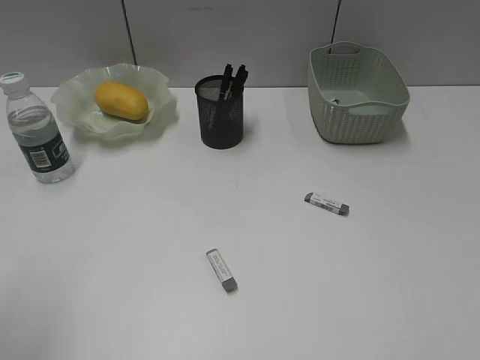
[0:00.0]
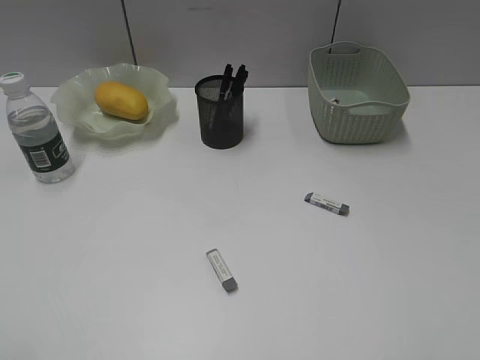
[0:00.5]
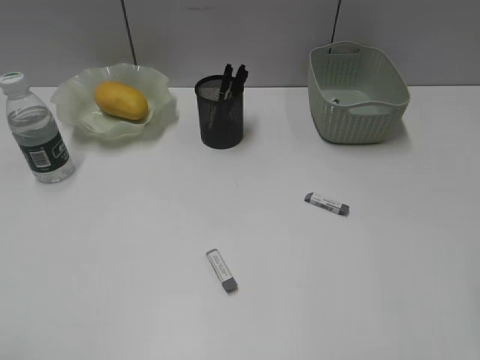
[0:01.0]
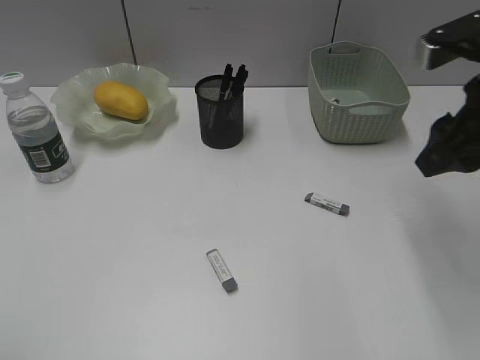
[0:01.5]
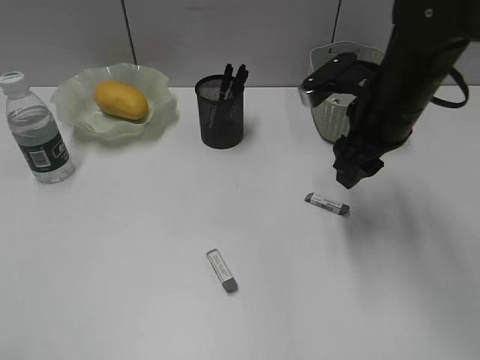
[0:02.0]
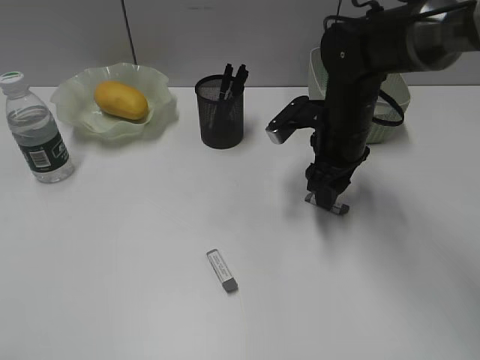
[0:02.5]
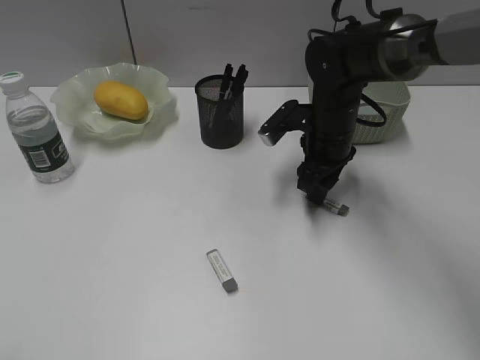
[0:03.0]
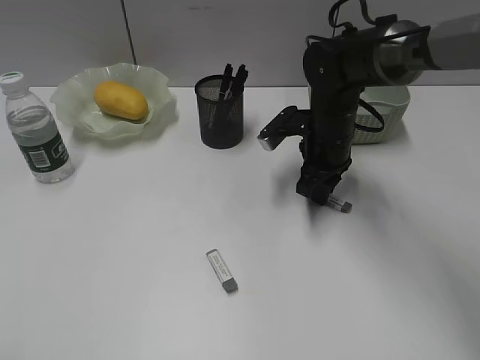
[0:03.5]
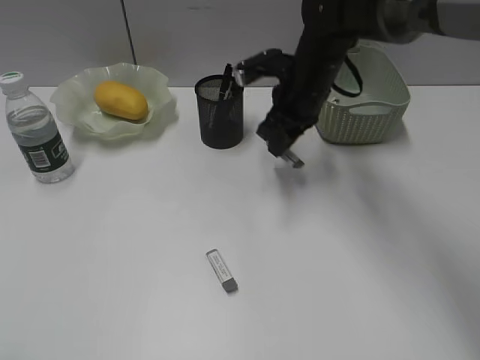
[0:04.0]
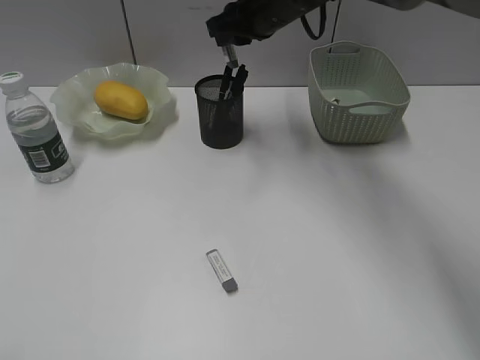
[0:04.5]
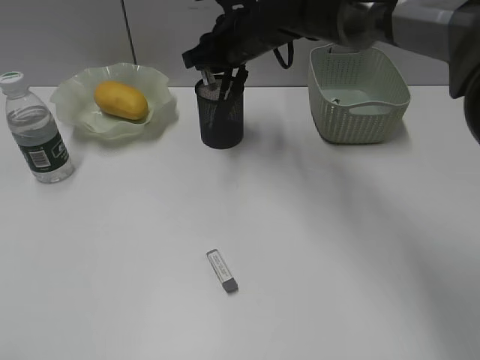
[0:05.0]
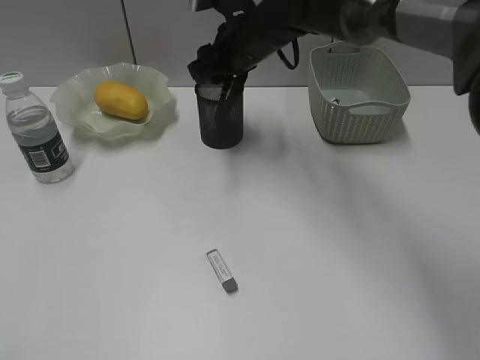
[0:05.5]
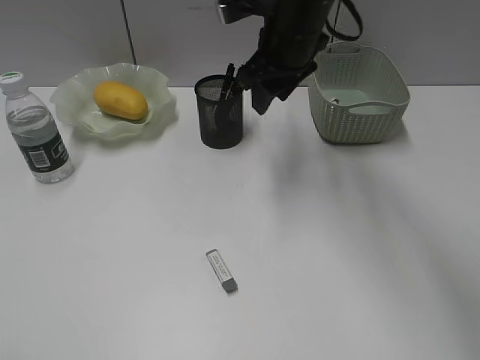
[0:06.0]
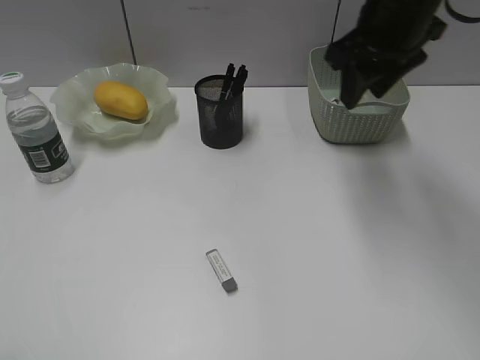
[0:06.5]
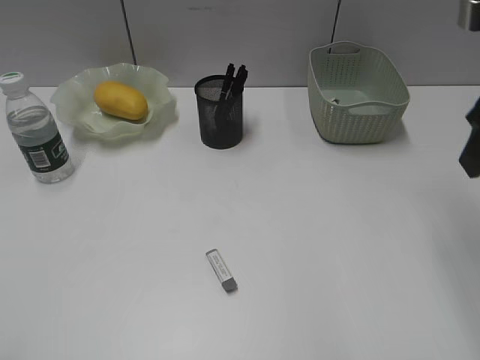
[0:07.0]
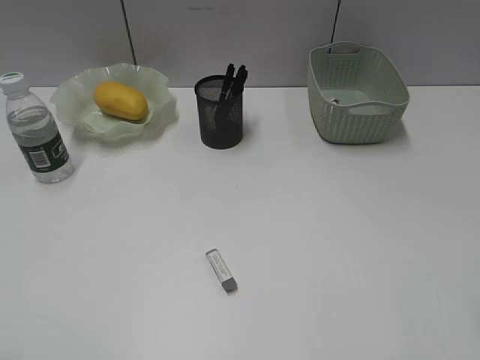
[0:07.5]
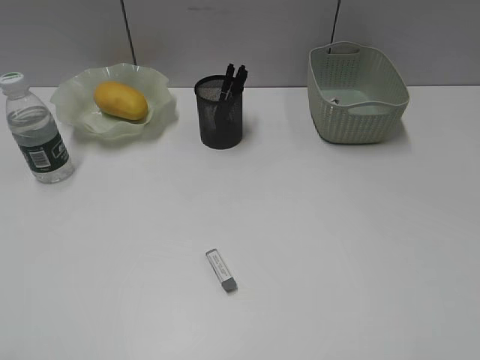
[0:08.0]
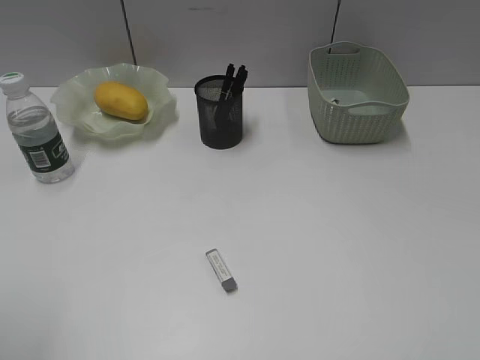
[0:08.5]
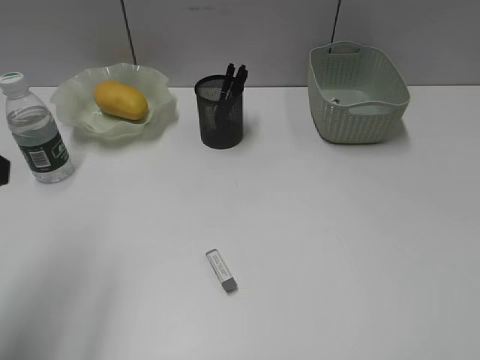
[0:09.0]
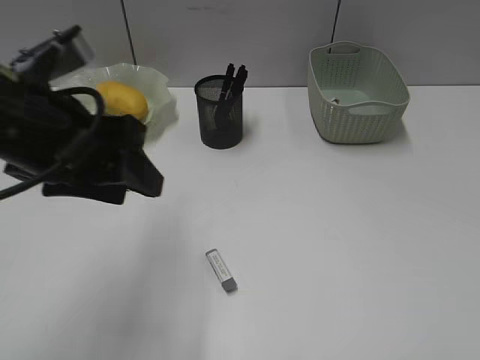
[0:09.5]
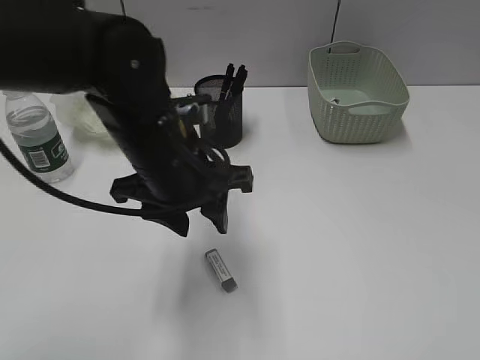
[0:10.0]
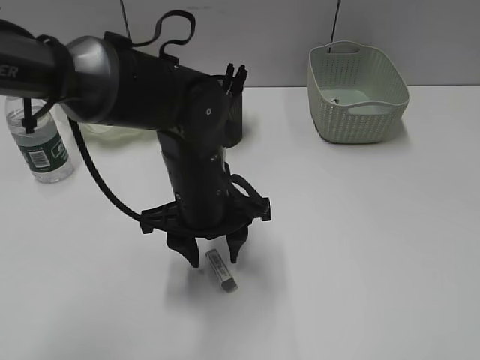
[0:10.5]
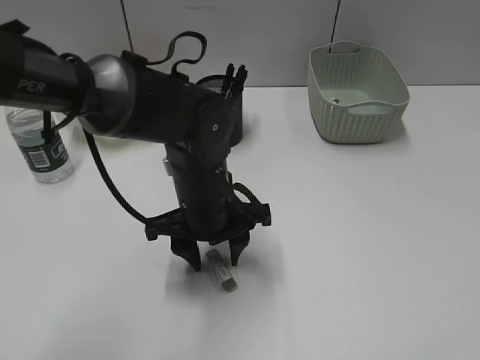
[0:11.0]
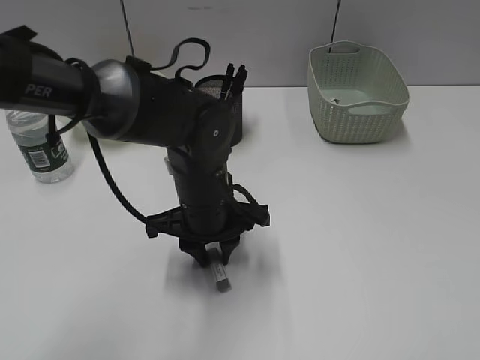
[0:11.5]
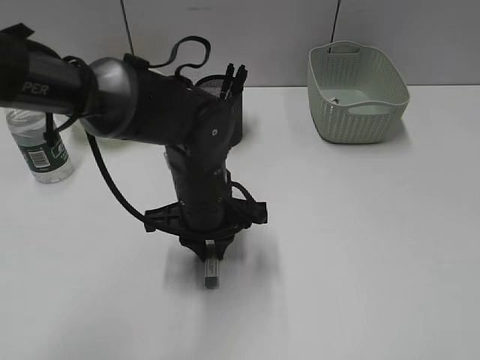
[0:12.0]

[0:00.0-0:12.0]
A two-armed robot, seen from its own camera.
Step, 0:00.0 to 0:03.5: Grasp the eraser with right gripper.
Step, 0:04.0 to 0:05.0: Place the eraser in pen holder with right gripper.
Step, 0:05.5 to 0:11.5: Grasp the eraser with left gripper.
0:00.0 to 0:02.0: The right gripper heads forward and to the left, covering about 35 cm.
0:02.0 to 0:04.0: The right gripper shifts about 10 cm forward and to the left, moves approximately 10 cm downward and comes back, and closes.
0:04.0 to 0:06.0: The right gripper moves up and down over about 5 cm, changing direction 2 times, and opens up.
0:06.0 to 0:08.0: The right gripper is displaced backward and to the right by approximately 40 cm, and opens up.
0:08.0 to 0:10.0: The left gripper heads forward and to the right, covering about 35 cm.
0:10.0 to 0:12.0: The left gripper is displaced downward by about 5 cm, and closes.

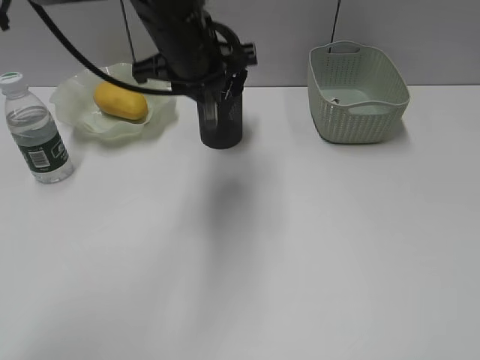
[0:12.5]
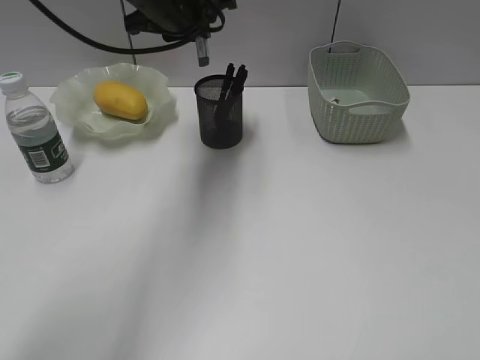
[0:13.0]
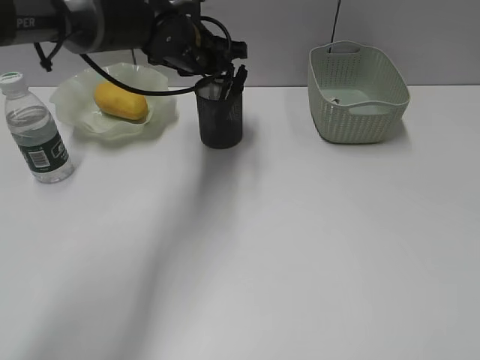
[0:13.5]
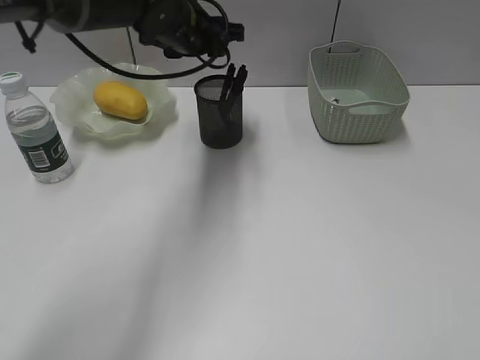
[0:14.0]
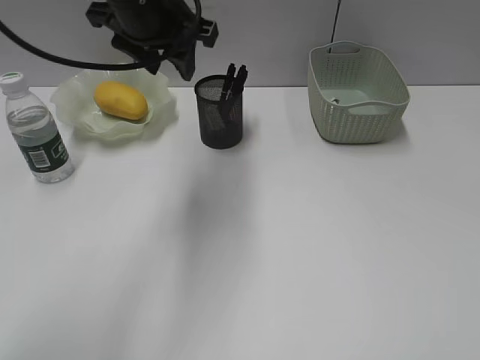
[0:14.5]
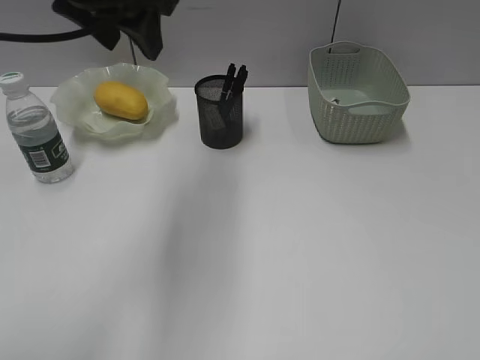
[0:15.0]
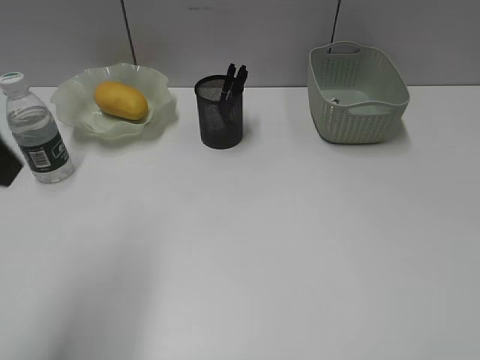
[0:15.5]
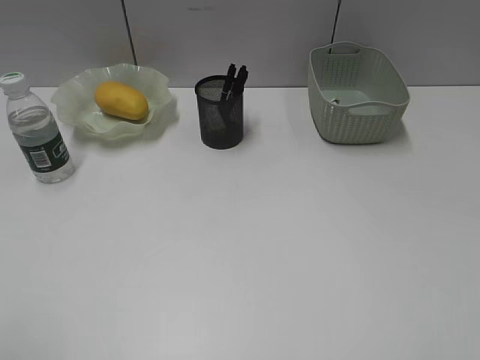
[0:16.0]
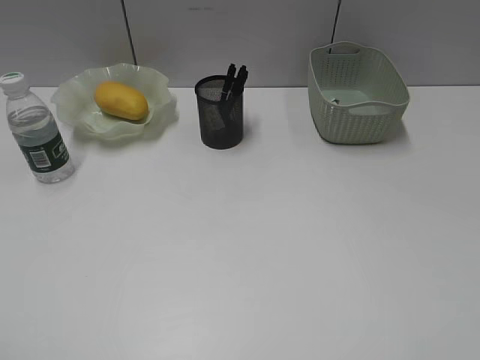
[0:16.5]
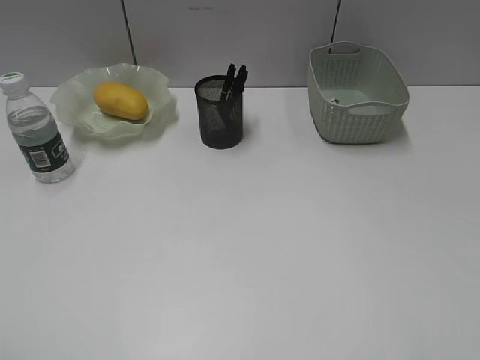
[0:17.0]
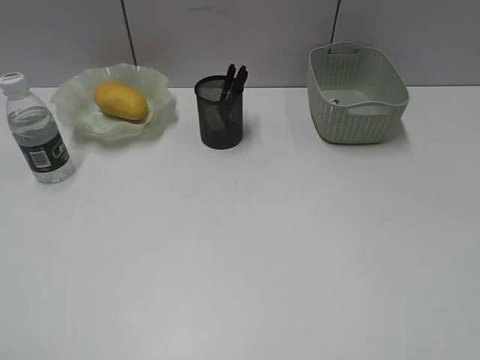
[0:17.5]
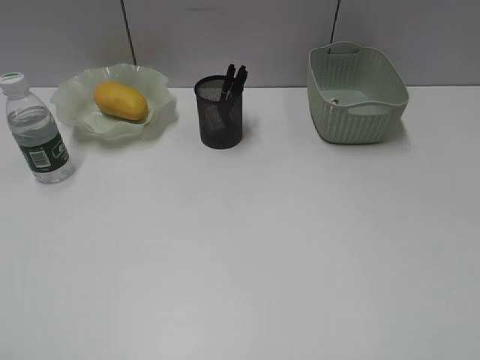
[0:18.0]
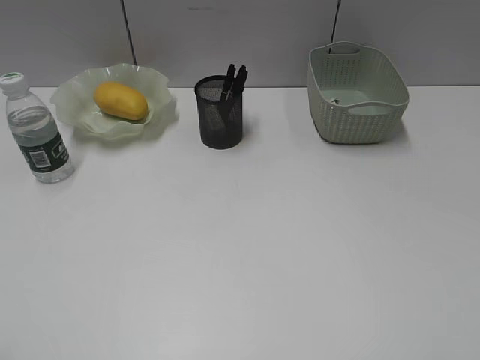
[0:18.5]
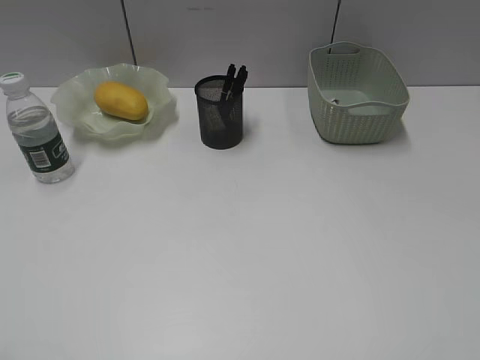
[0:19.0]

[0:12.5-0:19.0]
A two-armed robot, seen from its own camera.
Step, 0:12.5 to 0:14.0: Place the eraser in pen holder with left gripper.
0:12.5 to 0:14.5: The left gripper opens.
0:14.5 to 0:17.0: The left gripper shifts approximately 40 cm backward and to the left.
